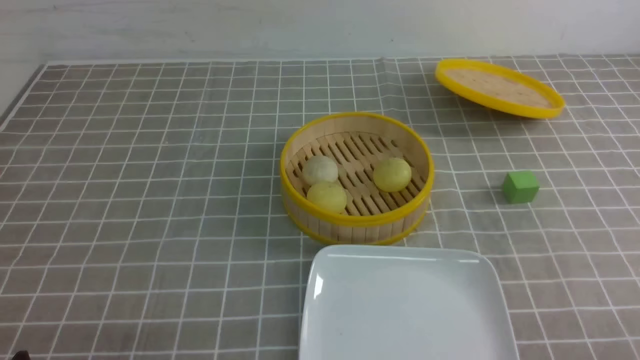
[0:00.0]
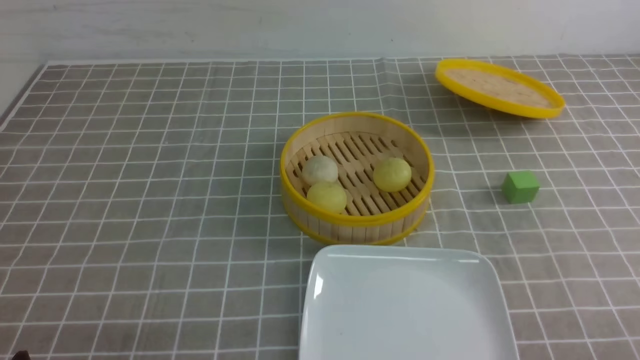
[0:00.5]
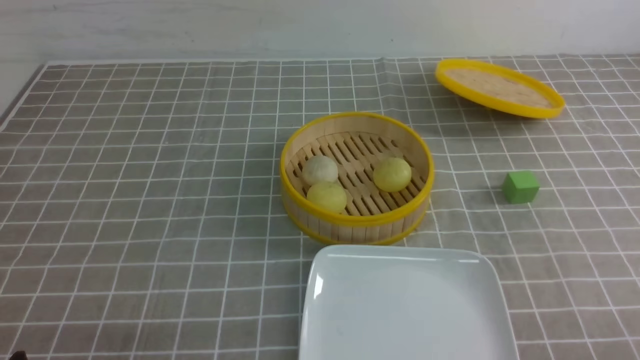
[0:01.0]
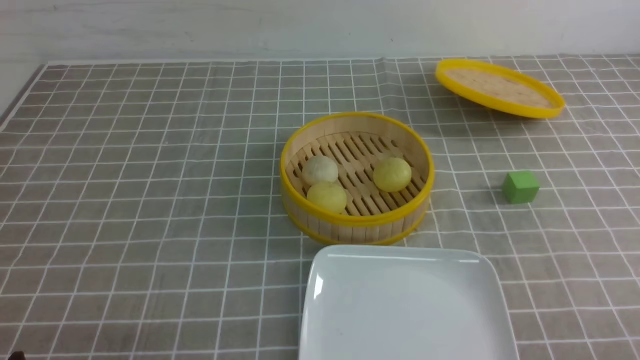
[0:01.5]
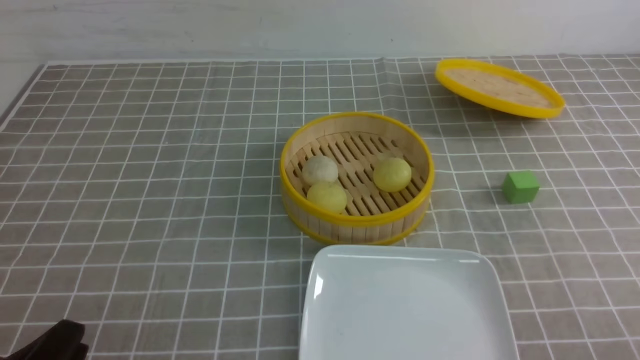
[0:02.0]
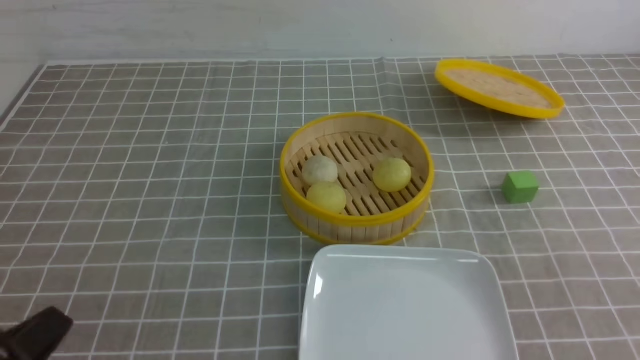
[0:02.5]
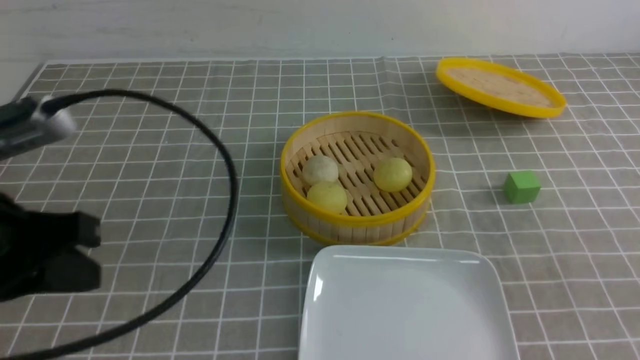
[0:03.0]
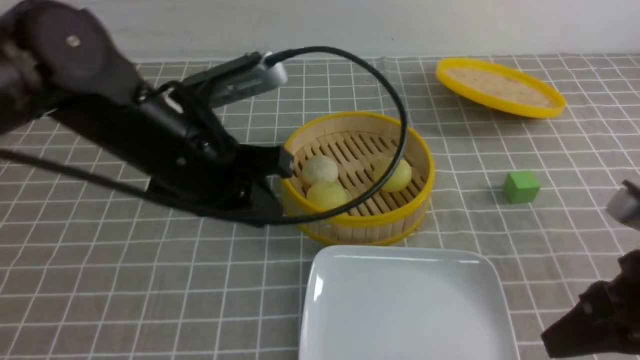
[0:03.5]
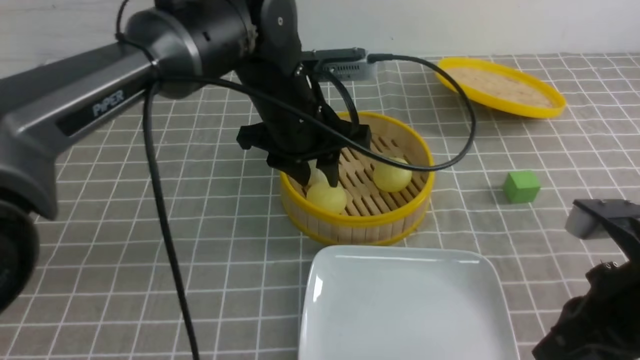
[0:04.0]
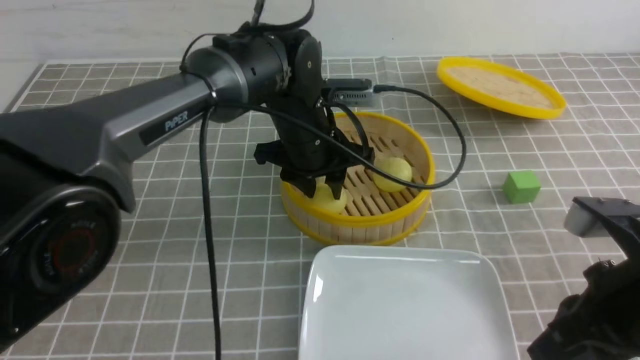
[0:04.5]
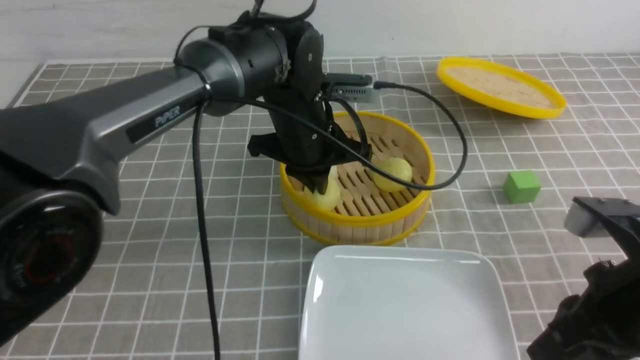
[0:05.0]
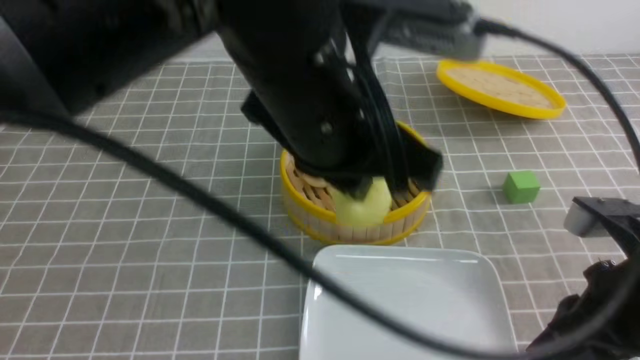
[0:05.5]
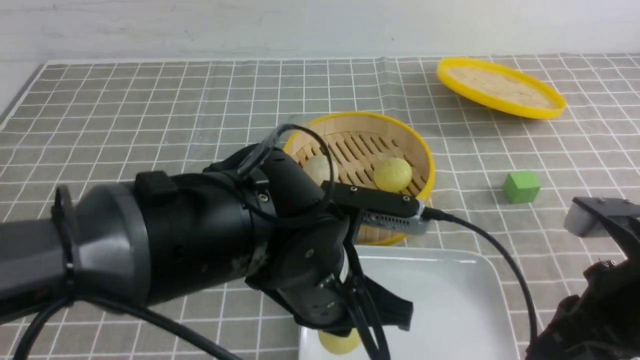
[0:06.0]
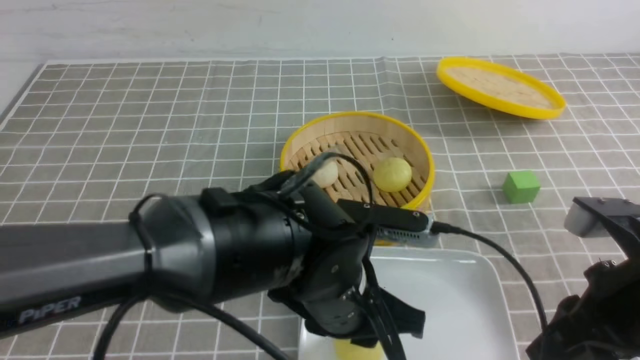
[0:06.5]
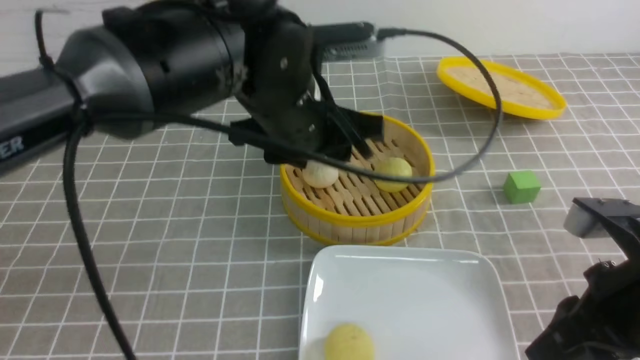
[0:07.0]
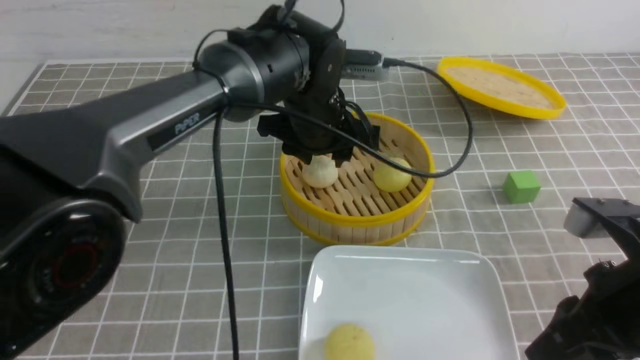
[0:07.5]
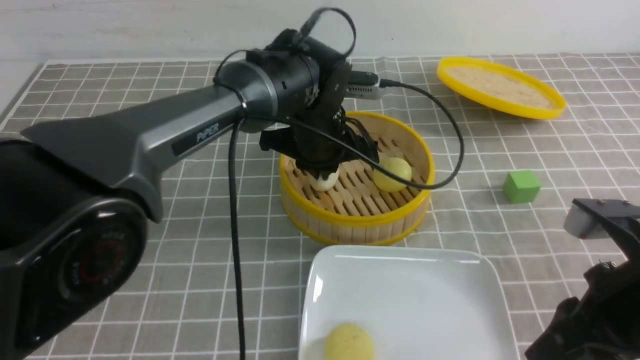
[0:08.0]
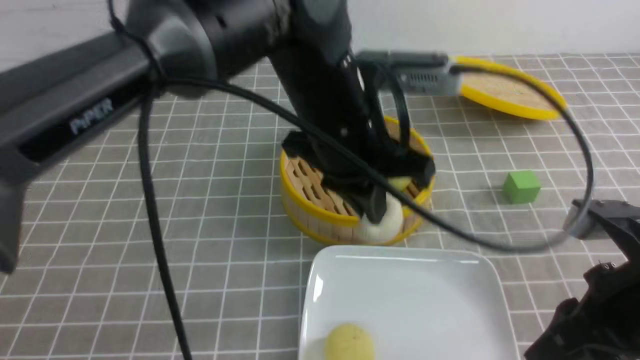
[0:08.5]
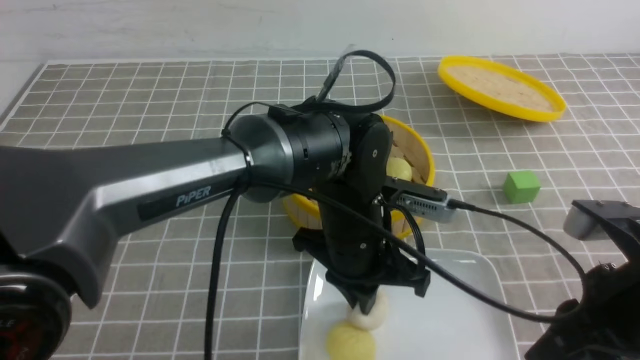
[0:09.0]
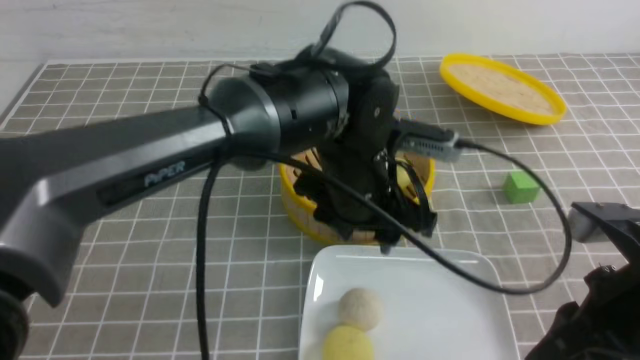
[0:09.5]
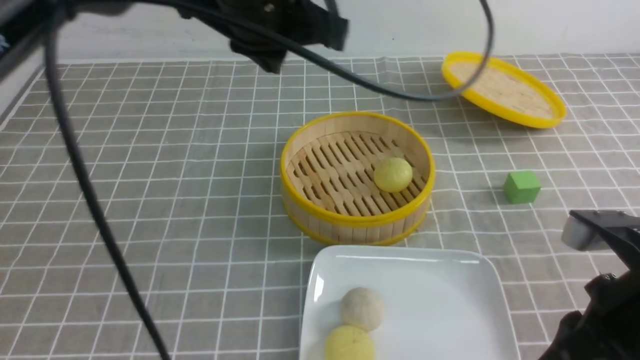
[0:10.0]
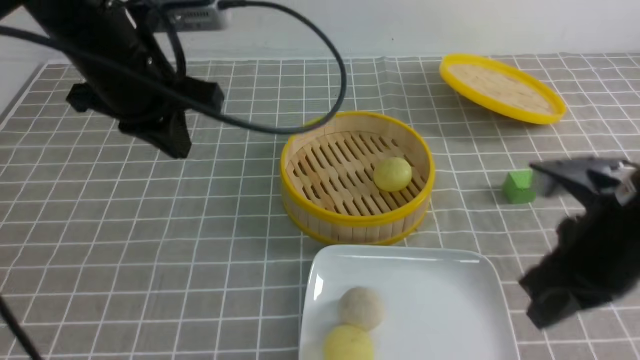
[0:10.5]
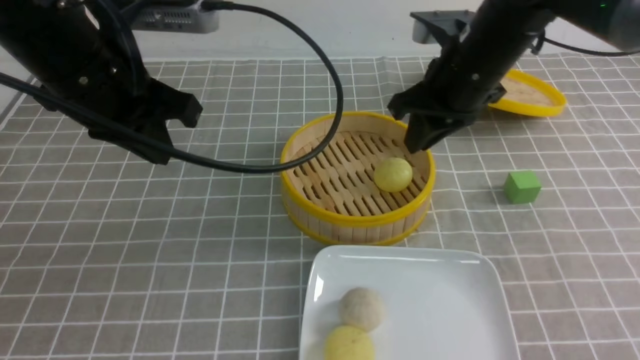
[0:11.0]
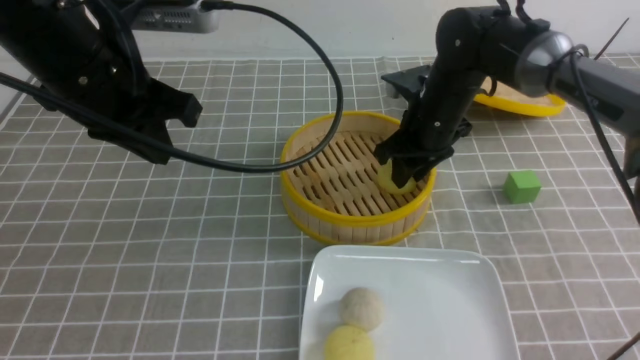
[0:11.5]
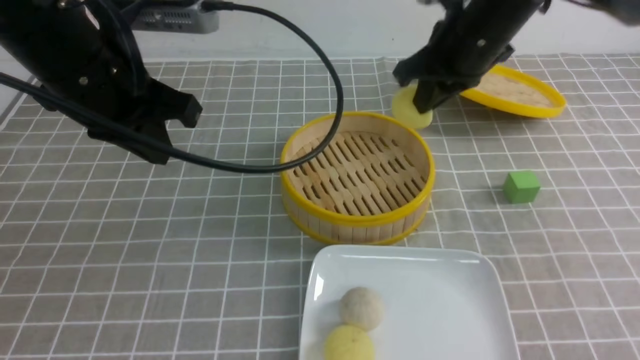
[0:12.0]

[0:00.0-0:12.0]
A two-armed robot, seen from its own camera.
Step, 0.0 to 5.0 s: use the left arm to grab the steamed stuffed bun that is closest to it.
Step, 5.5 to 6.5 s: use the left arm to put the steamed stuffed bun into the plate.
Step, 7.0 to 8.0 s: use the left arm to grab the steamed stuffed bun that is closest to it.
Step, 8.5 to 9.0 s: use the left arm to put the steamed stuffed bun into the plate.
Step, 9.5 to 11.5 s: use the right arm to grab the steamed stuffed bun that is closest to it.
2.0 to 4.0 s: The right gripper heads forward, to the left and upward, covering some 15 cm, and closes; the left gripper goes some 40 cm forward and to the right, and closes, then opens again.
4.0 to 6.0 s: The left gripper shifts approximately 15 cm backward, and closes its fingers.
6.0 to 8.0 s: The left gripper travels forward by some 20 cm, and opens and closes again.
8.0 to 10.0 s: The left gripper moves up and down over approximately 20 cm, changing direction 2 times, and opens and closes again.
10.0 to 12.0 s: The right gripper shifts approximately 25 cm forward and upward, and closes, while the left gripper travels to the left by some 10 cm.

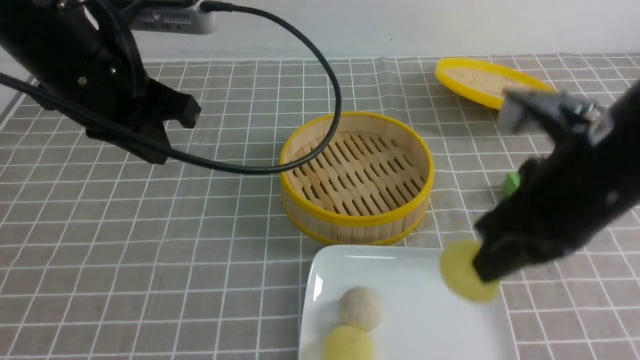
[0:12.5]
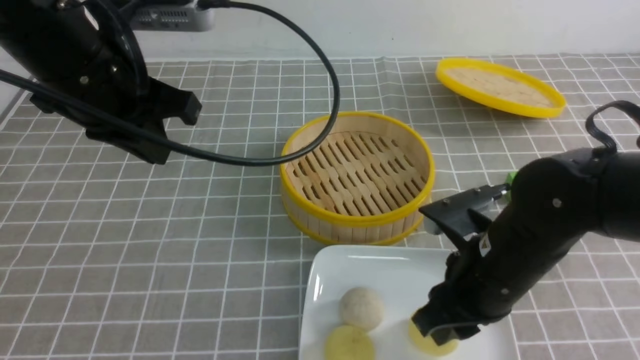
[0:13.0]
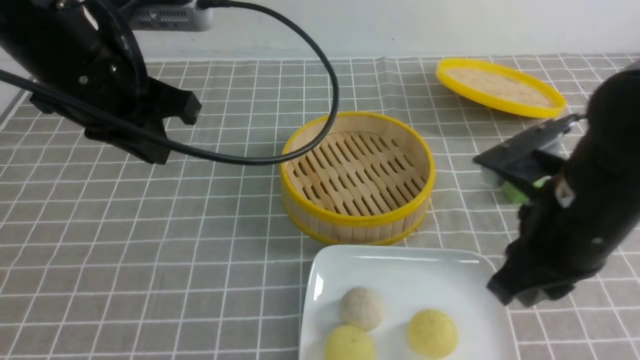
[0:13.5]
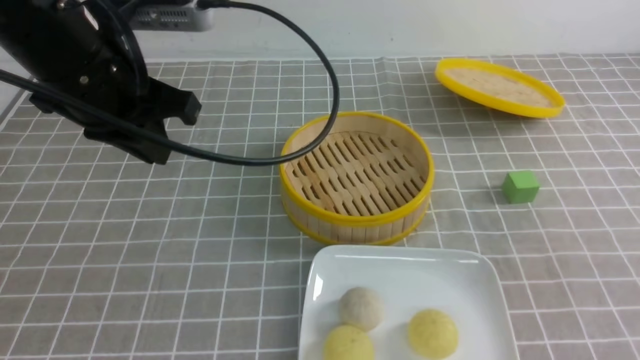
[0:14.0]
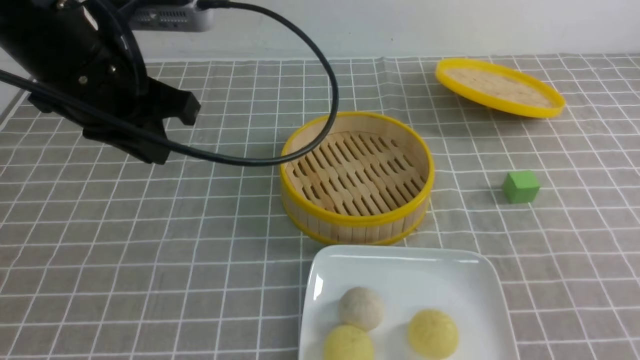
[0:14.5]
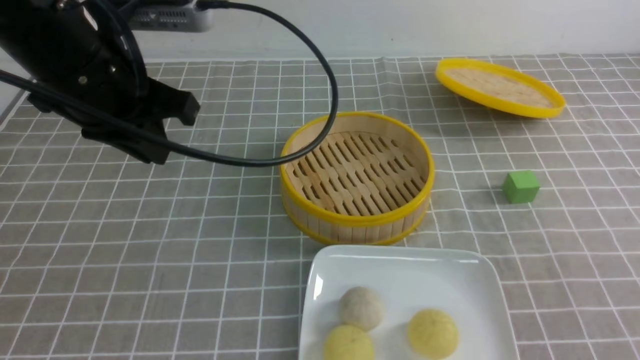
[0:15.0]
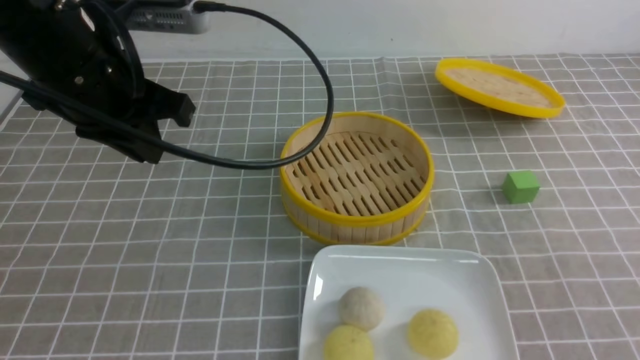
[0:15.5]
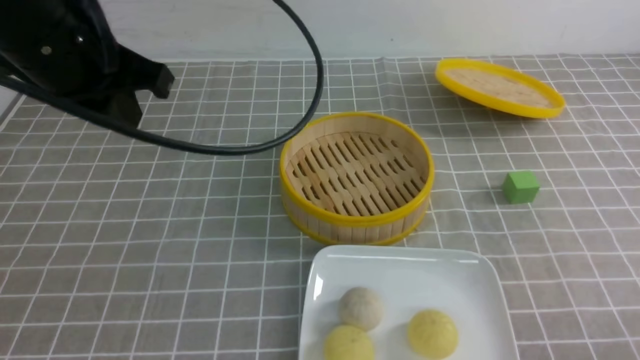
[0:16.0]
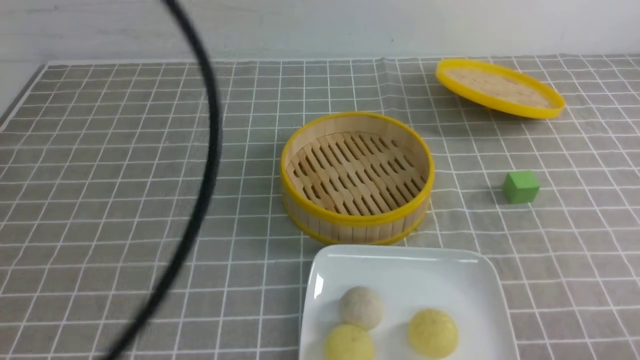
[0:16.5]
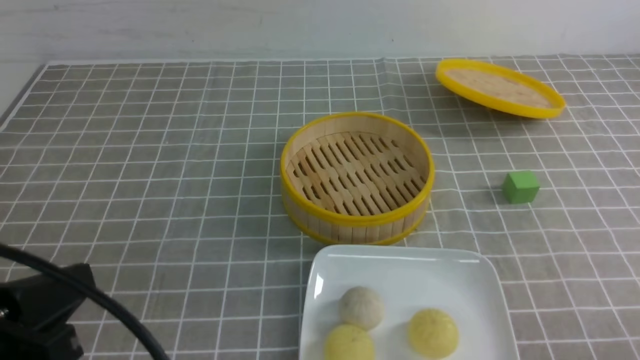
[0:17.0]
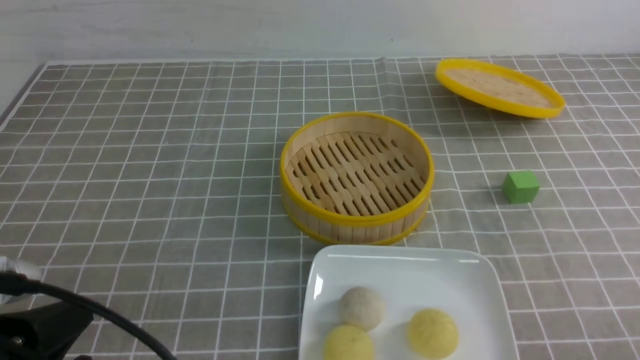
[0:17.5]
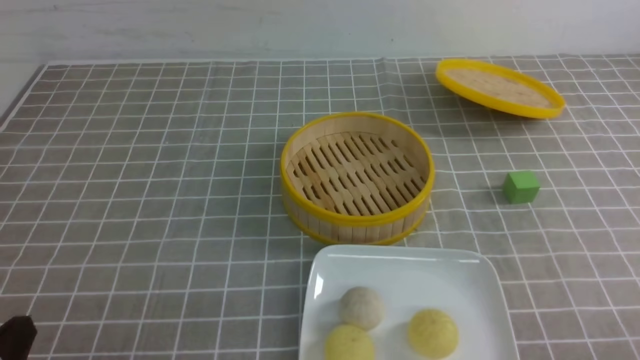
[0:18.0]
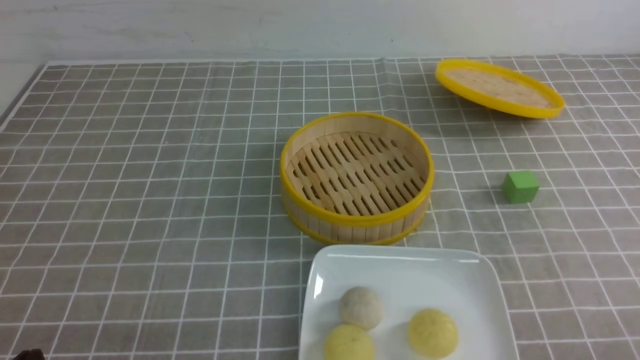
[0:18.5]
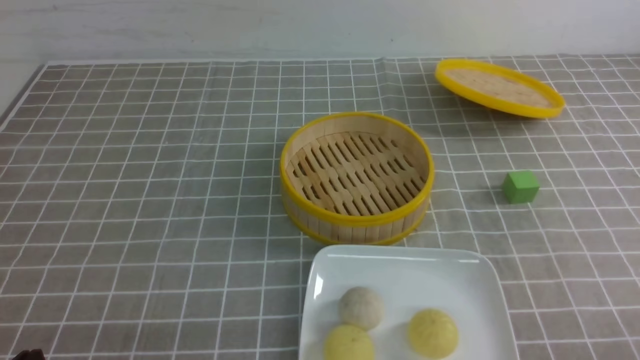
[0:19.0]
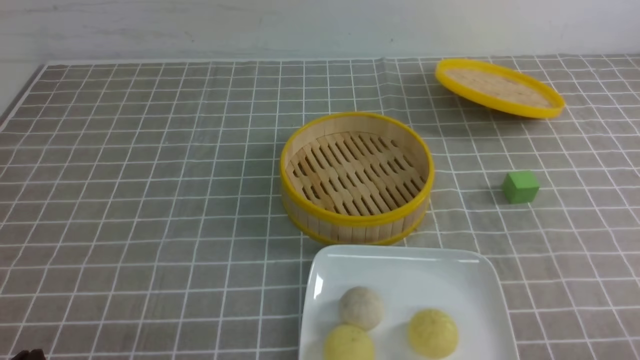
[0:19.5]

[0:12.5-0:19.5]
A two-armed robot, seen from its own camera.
12.5 to 14.5 s: The right gripper travels backward and to the right by about 25 cm, and opens, then closes again.
14.5 to 16.0 s: The left gripper moves roughly 5 cm, while the right gripper moves downward, some 10 cm.
16.0 to 17.5 s: The left gripper goes about 25 cm backward and downward.
17.5 to 19.5 s: The left gripper is displaced downward by some 10 cm.

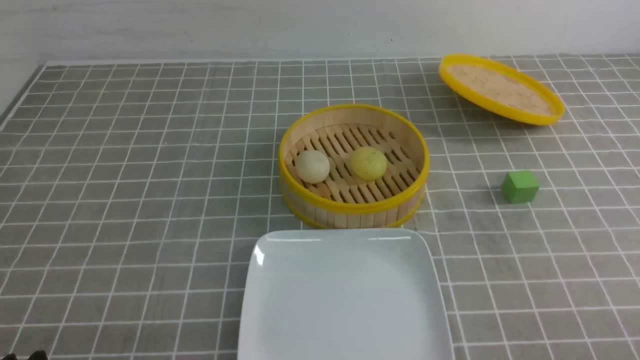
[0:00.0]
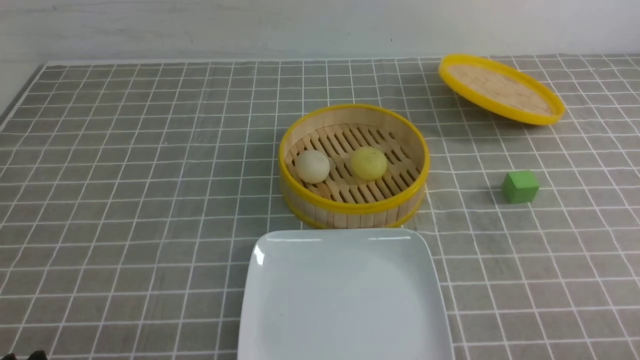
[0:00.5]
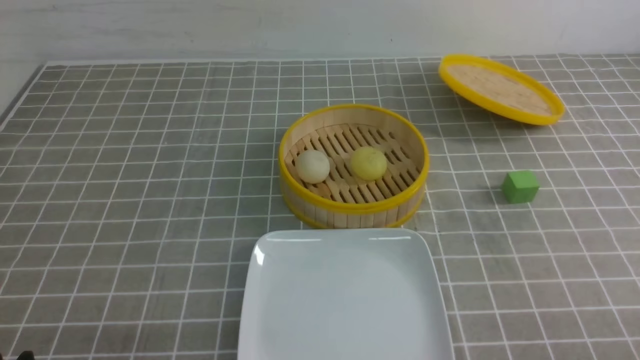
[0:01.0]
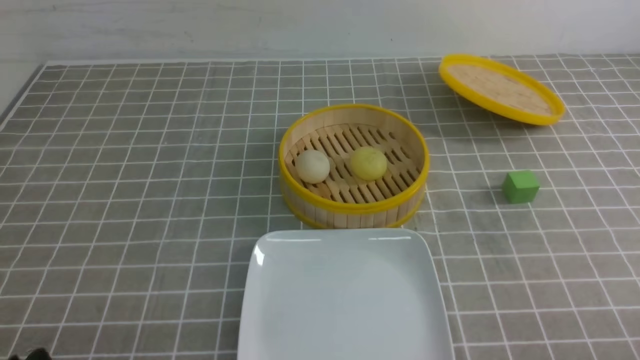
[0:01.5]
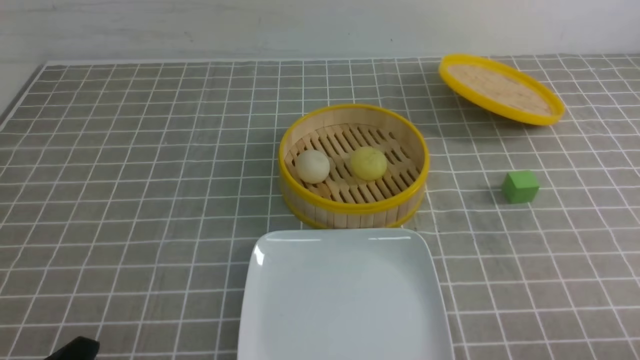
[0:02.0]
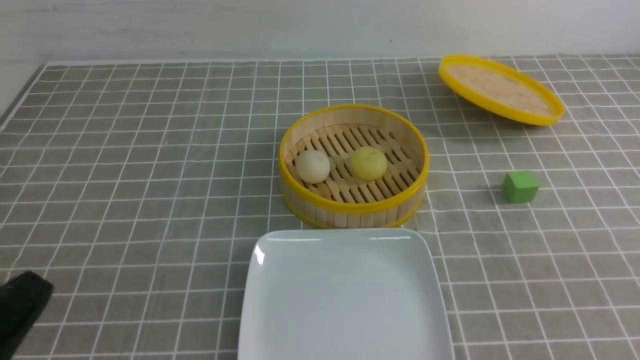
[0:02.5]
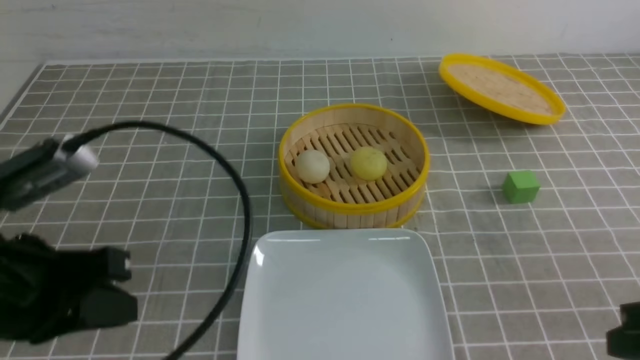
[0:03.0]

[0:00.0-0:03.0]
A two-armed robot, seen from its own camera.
1.5 to 3.0 s: The left gripper goes about 15 cm upward and forward, and closes. Meanwhile the right gripper travels forward and upward by roughly 10 cm, and closes.
